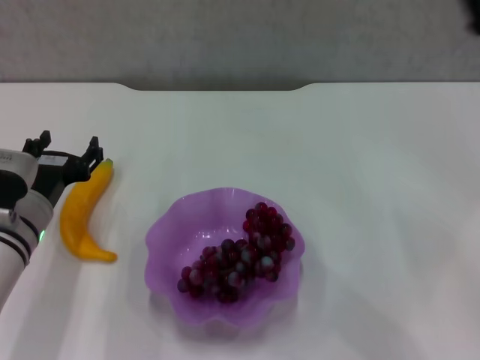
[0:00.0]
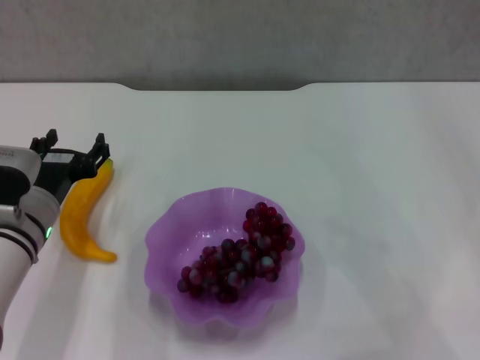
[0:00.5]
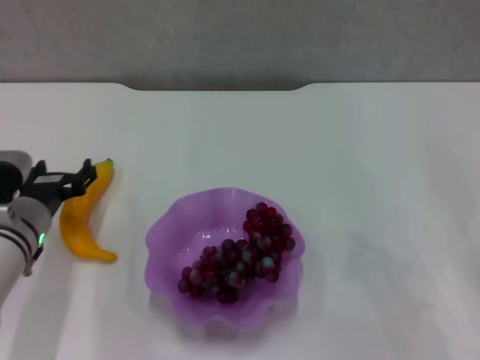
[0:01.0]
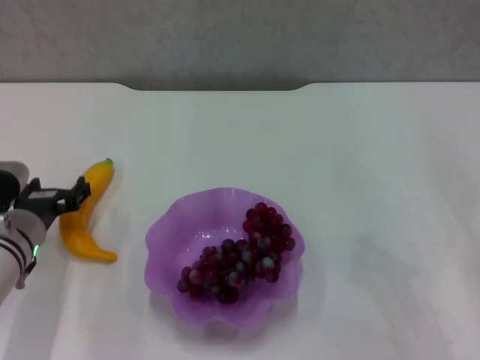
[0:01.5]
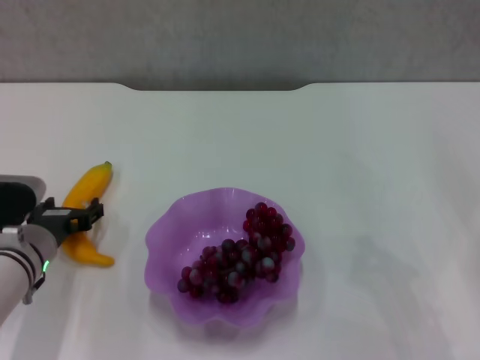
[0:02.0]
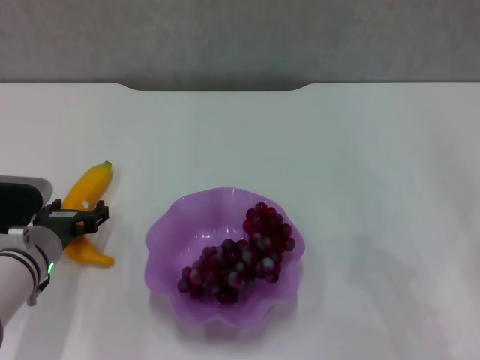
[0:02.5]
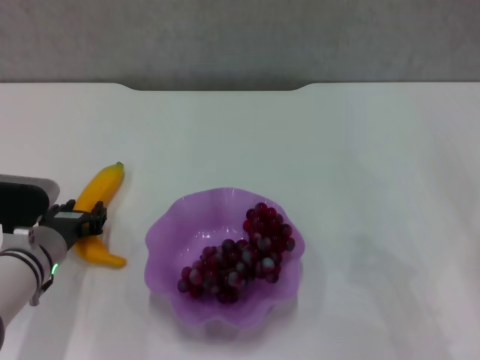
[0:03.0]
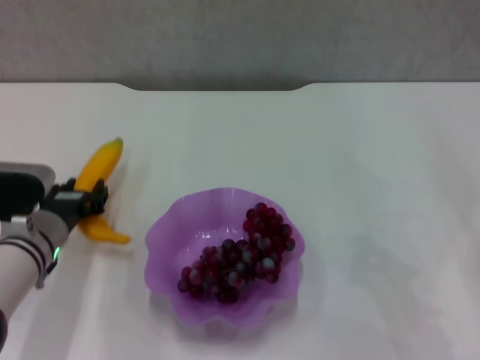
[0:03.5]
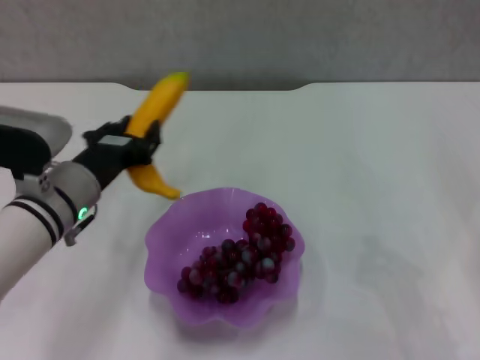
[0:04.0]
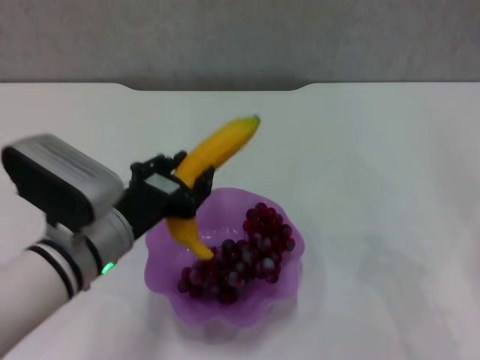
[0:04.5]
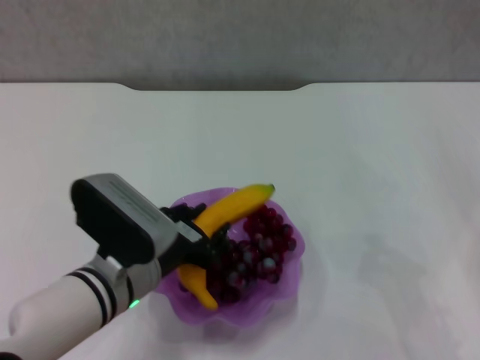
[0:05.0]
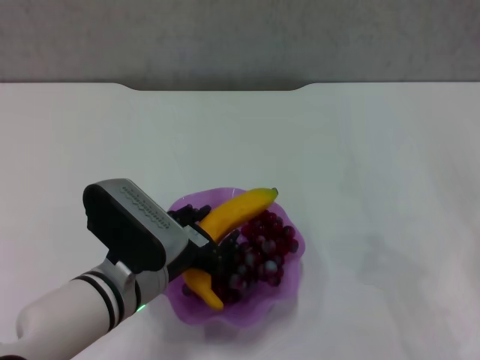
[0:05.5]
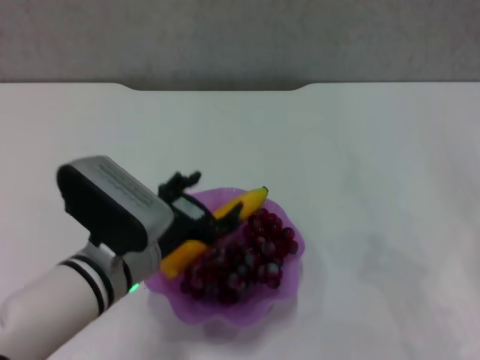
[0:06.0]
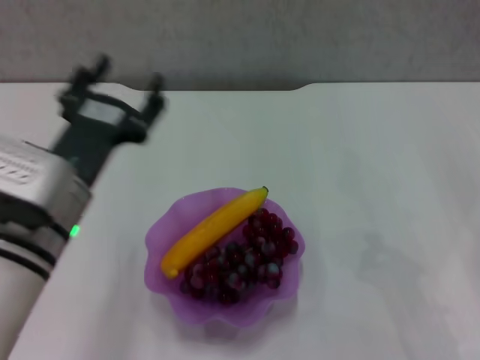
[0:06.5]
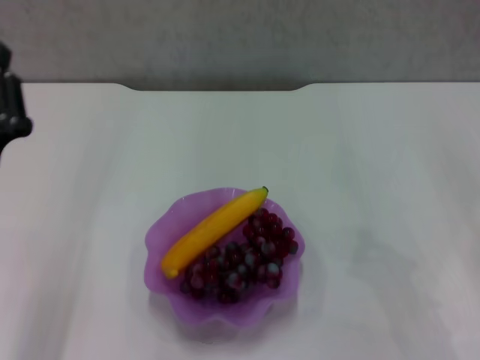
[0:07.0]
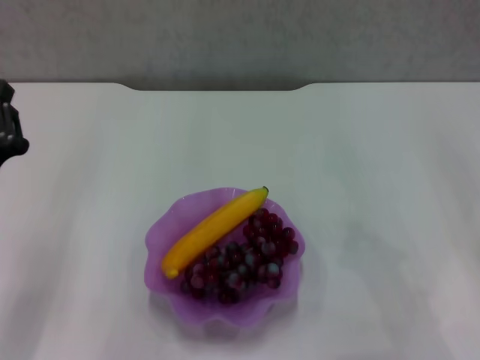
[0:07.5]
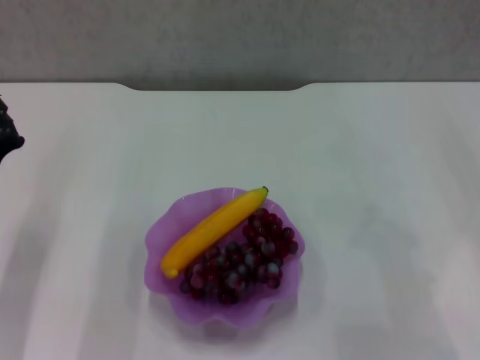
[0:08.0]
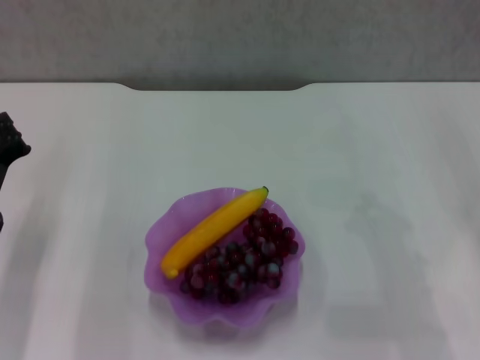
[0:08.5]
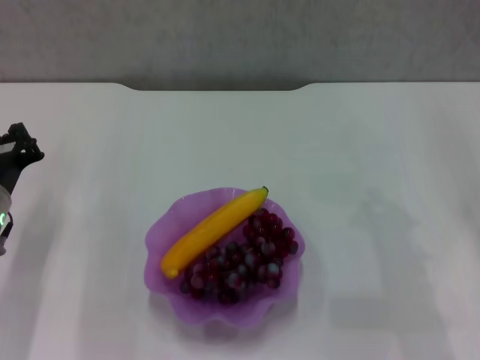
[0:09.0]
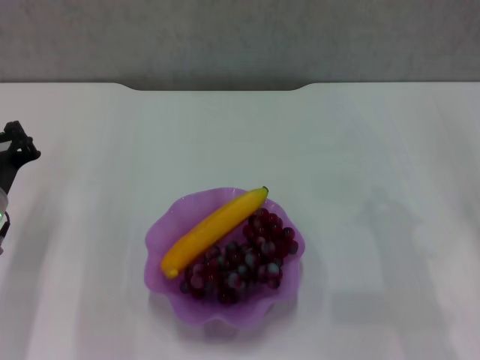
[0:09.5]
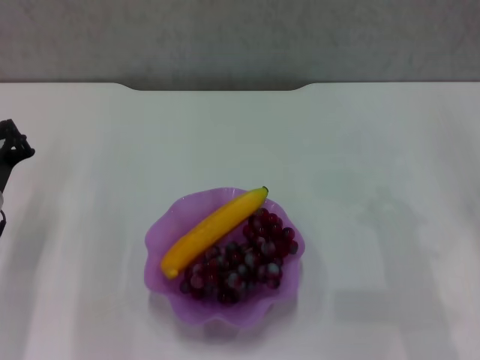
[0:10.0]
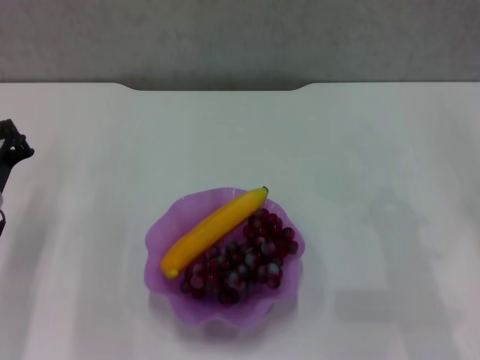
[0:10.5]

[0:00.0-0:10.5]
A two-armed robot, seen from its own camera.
Step, 0:00.0 to 0:03.0: Grasp the banana with left gripper.
Step, 0:03.5 to 0:05.5: Place the banana in the purple plate with left gripper.
0:02.0 to 0:04.0: The left gripper is displaced upward and to the right by approximately 10 cm, and closes up.
0:04.0 to 0:06.5: The left gripper heads backward, covering some 5 cm, and opens.
0:06.5 to 0:08.5: The left gripper travels to the left, downward and forward by approximately 15 cm, and closes.
